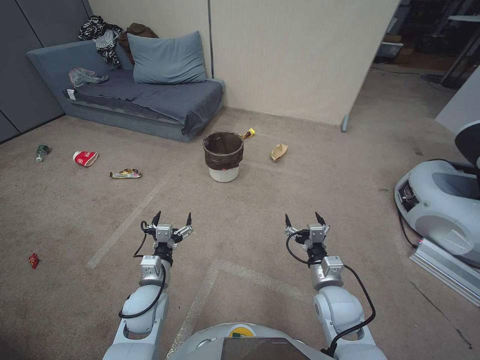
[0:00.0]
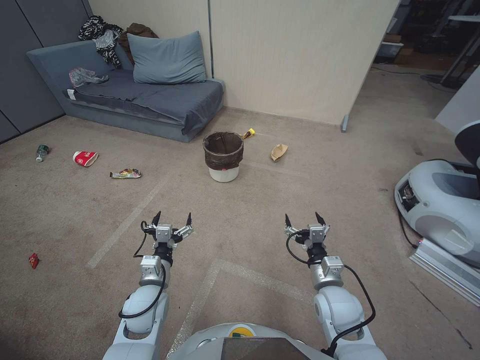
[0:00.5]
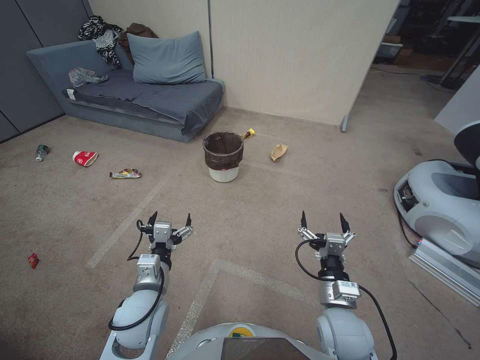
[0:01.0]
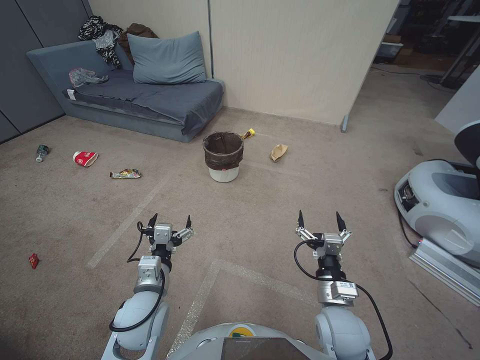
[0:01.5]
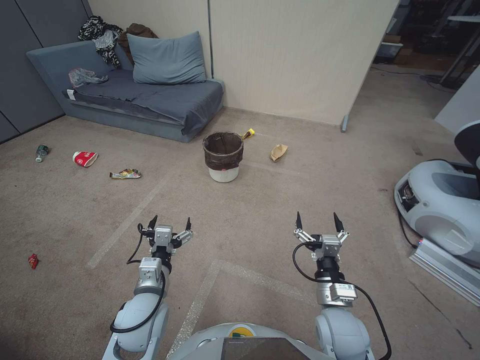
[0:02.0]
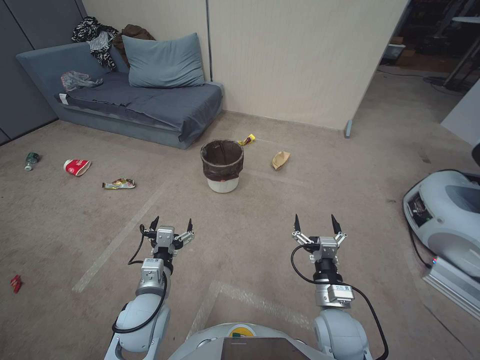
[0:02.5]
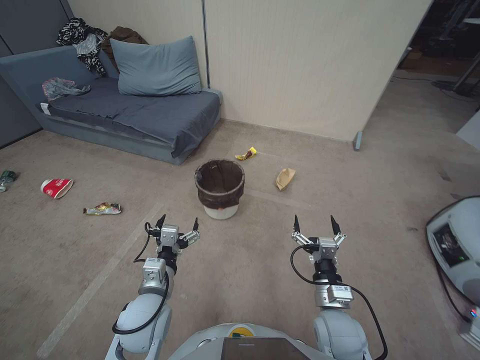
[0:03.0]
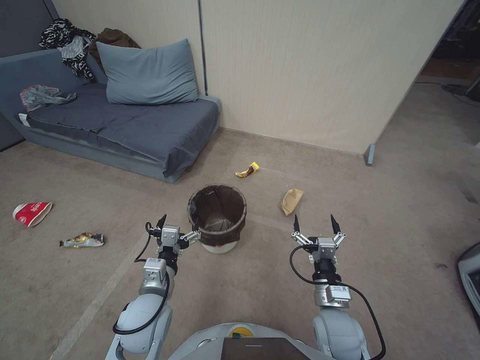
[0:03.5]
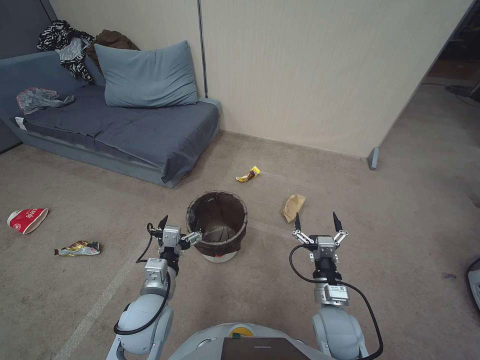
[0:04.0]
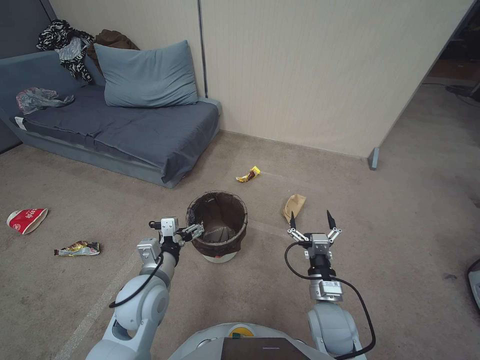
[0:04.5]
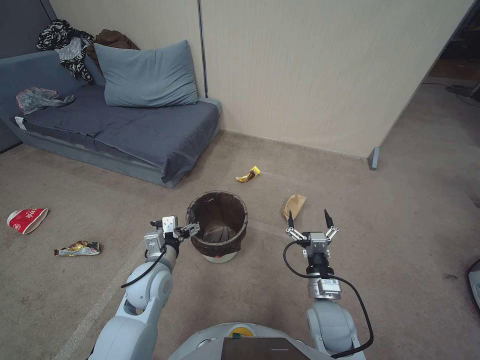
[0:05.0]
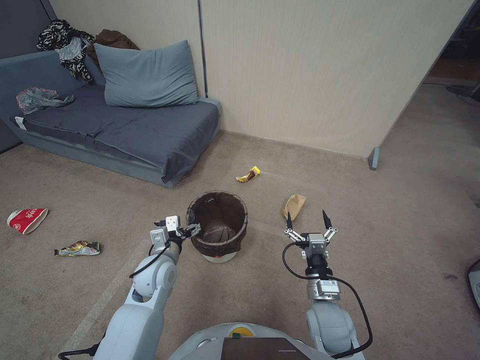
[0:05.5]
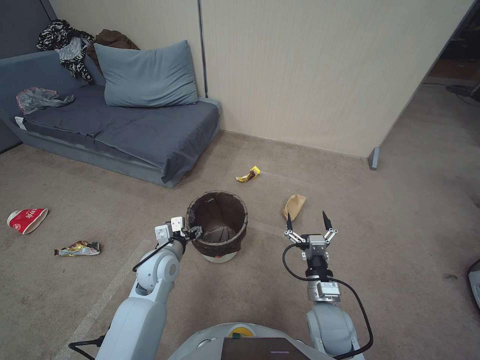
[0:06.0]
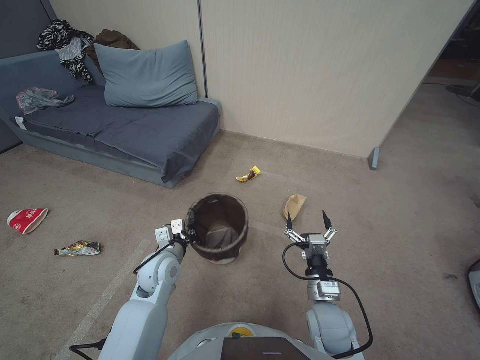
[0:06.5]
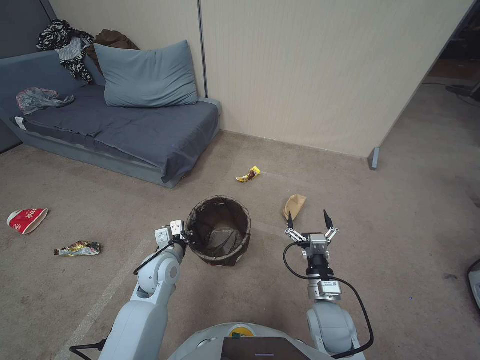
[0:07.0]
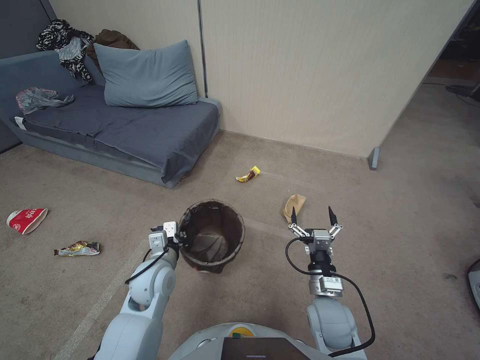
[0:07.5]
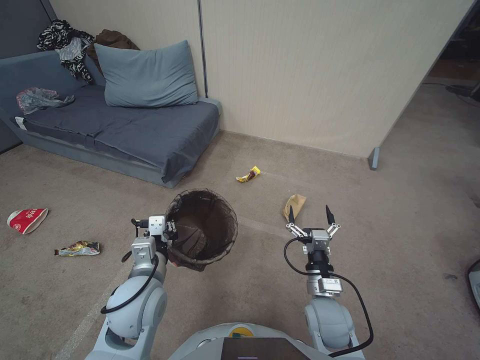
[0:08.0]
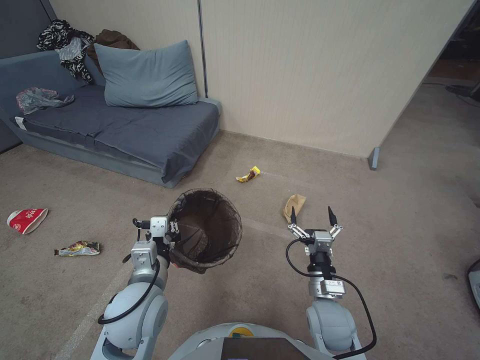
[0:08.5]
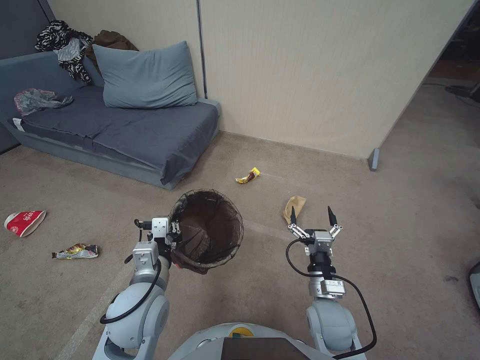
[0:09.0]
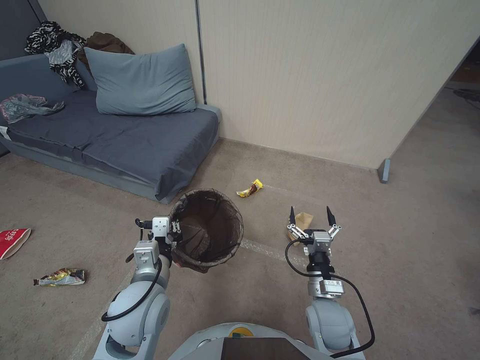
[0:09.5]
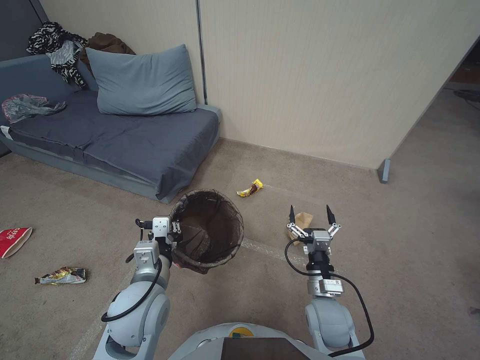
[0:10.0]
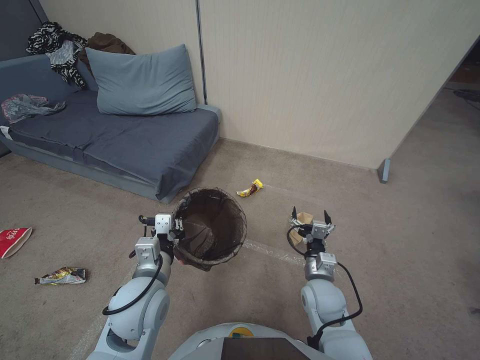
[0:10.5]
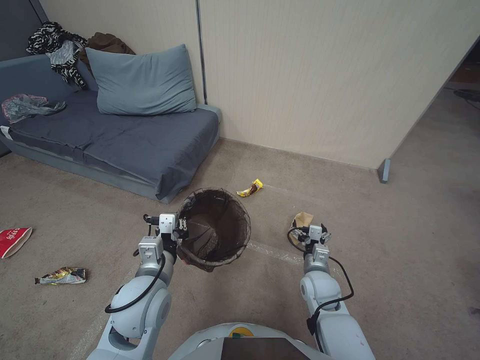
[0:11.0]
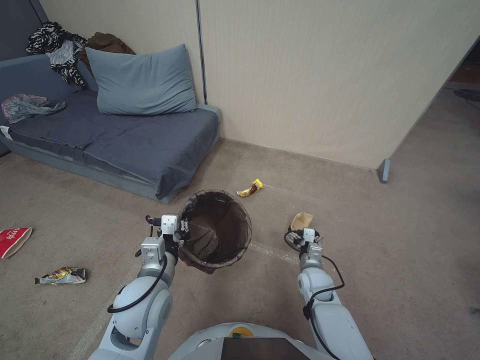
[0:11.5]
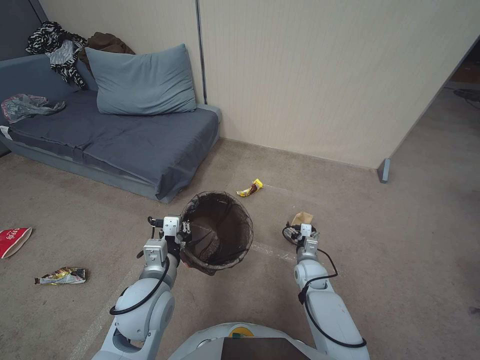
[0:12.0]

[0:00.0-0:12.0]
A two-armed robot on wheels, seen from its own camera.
Task of the whole recording: Pick up the trash bin, then pick up the garbage from the floor and place it into the trash bin.
0:04.0 to 0:06.0: The left gripper travels forward by approximately 10 cm.
0:06.0 to 0:08.0: The left gripper closes.
0:08.0 to 0:10.0: The left gripper heads backward and upward, covering approximately 10 cm.
0:10.0 to 0:12.0: The right gripper shifts approximately 15 cm forward and downward.

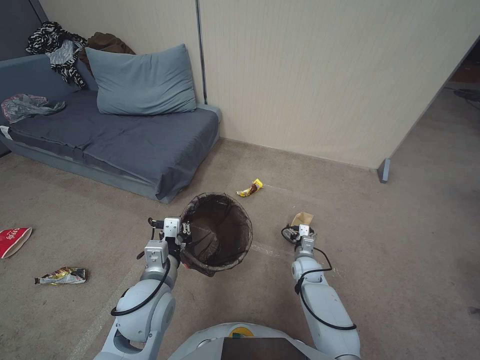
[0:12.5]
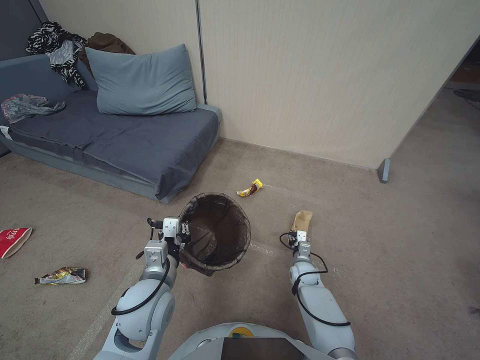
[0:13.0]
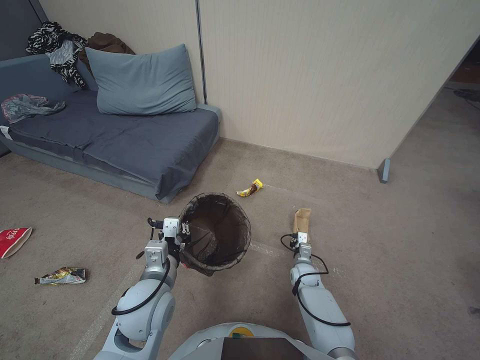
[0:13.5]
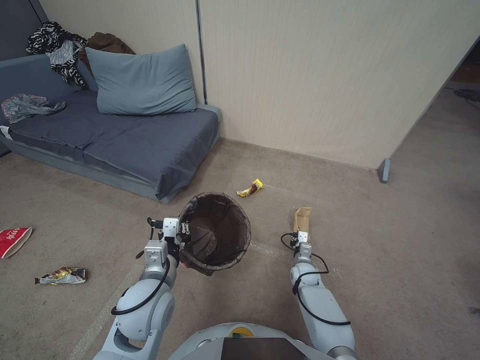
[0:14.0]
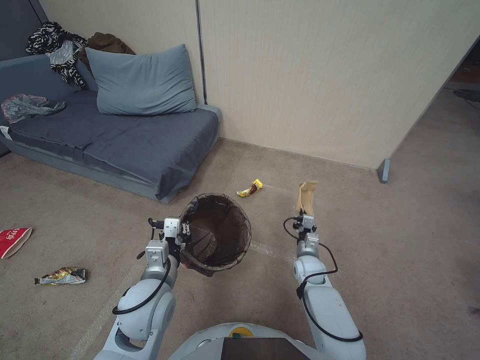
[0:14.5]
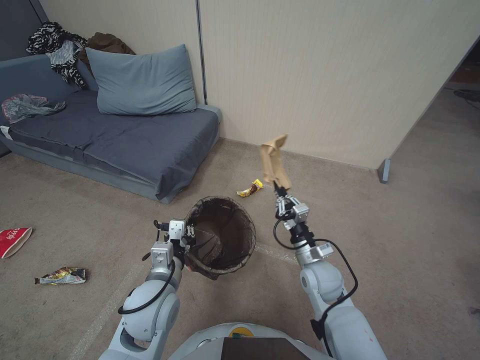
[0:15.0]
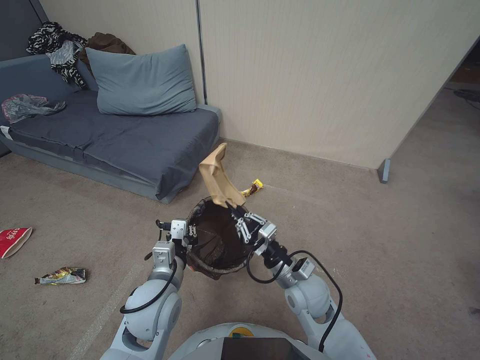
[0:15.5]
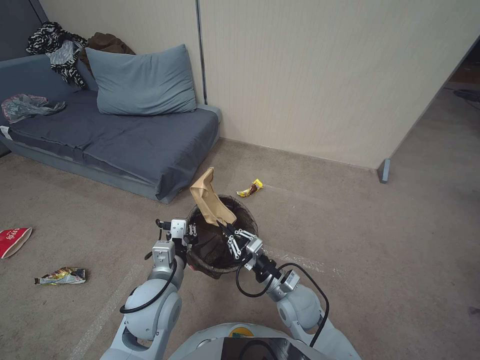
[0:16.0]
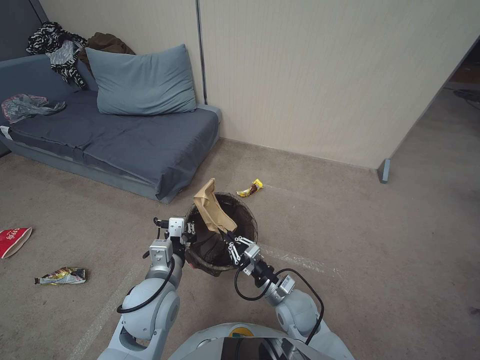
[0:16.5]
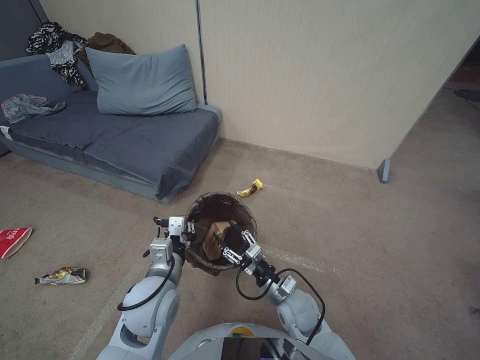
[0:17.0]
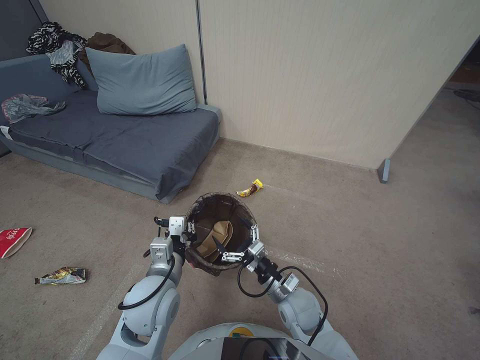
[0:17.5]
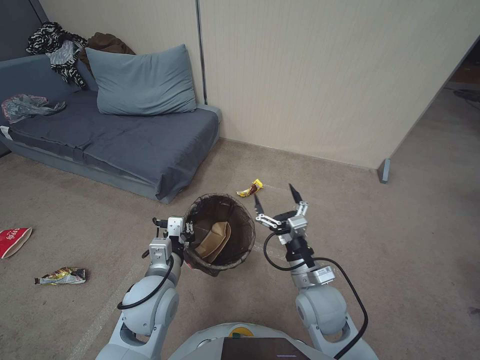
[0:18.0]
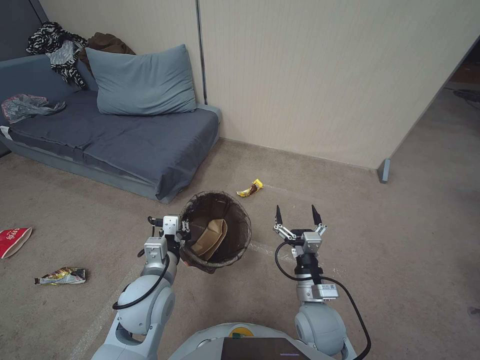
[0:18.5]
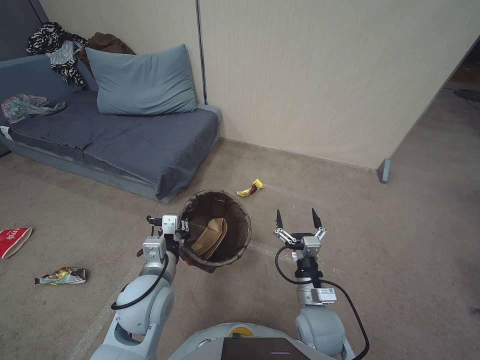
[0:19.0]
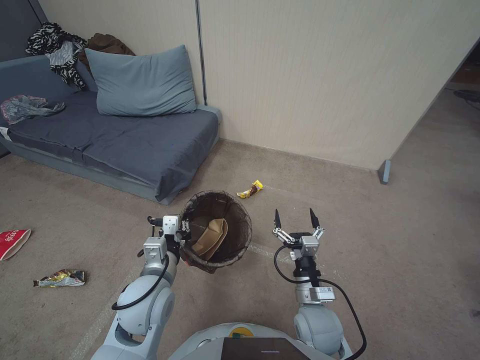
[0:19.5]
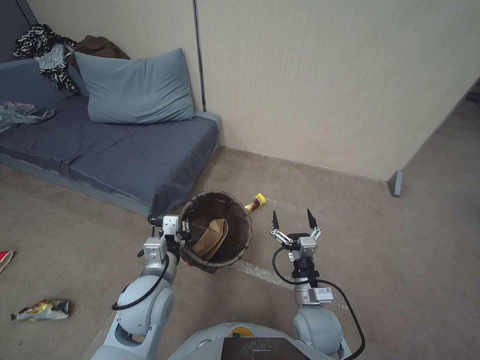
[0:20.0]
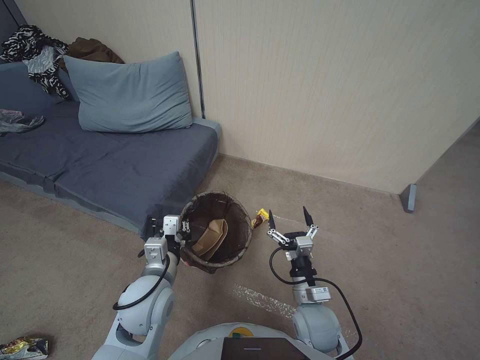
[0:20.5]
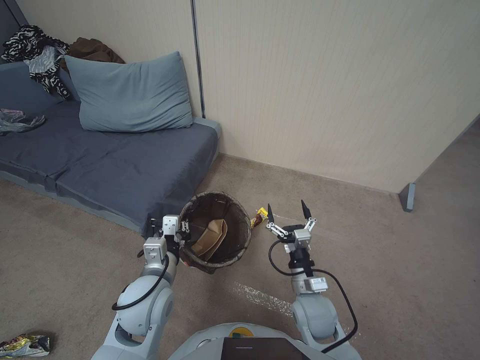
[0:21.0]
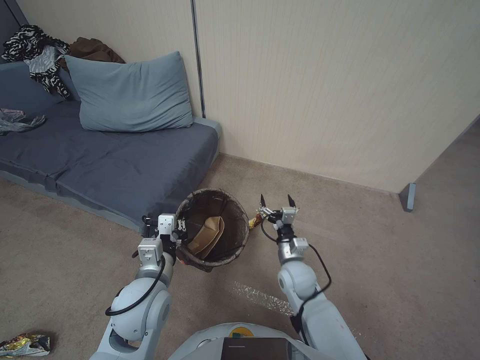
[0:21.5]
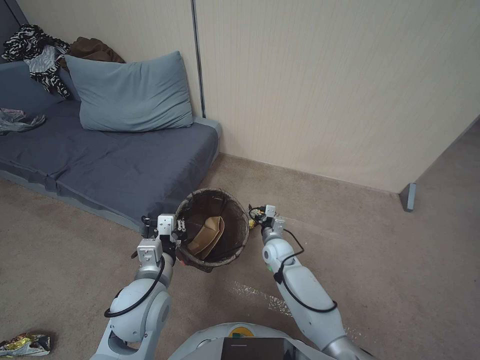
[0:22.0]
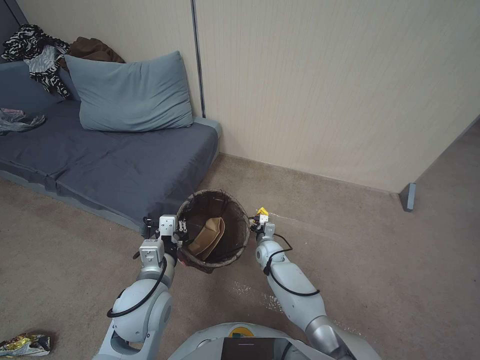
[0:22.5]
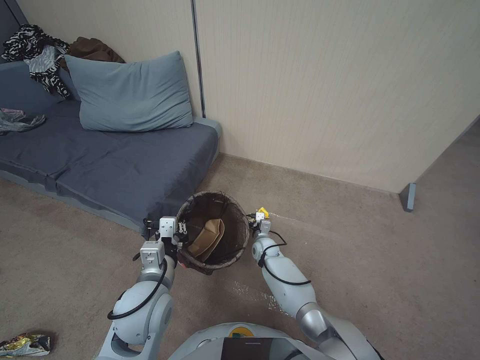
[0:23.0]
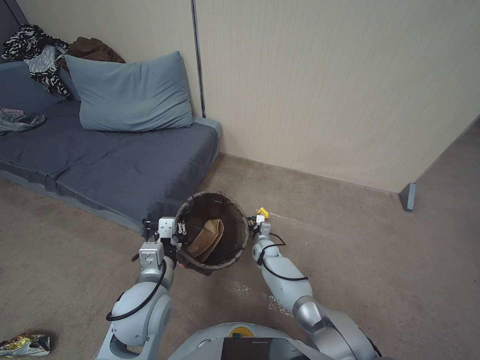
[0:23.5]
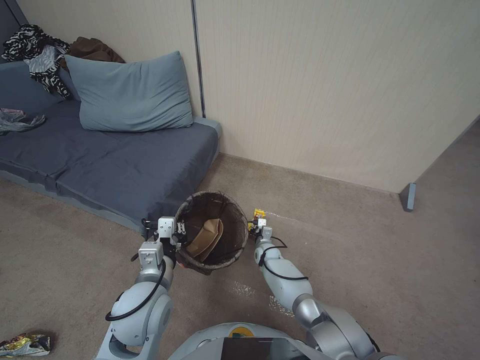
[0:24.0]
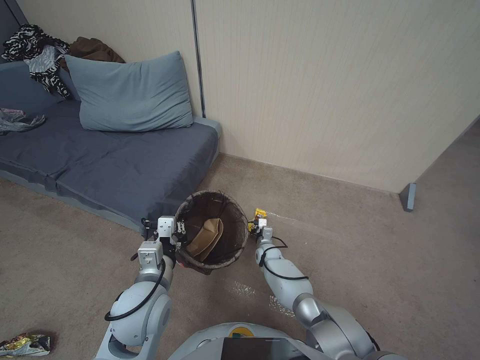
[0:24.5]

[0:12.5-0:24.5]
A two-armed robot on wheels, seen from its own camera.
Task of the whole recording: Pick up the trash bin, then pick up the garbage from the floor and place it into the trash bin.
0:12.5 to 0:14.5: The right gripper closes.
0:14.5 to 0:16.5: The right gripper is displaced backward, upward and to the left by roughly 20 cm.
0:16.5 to 0:18.5: The right gripper travels upward by roughly 5 cm, and opens up.
0:18.5 to 0:20.5: There are only small adjustments of the grippers.
0:20.5 to 0:22.5: The right gripper goes about 25 cm forward and downward.
0:22.5 to 0:24.5: The right gripper goes approximately 5 cm downward, and closes its fingers.

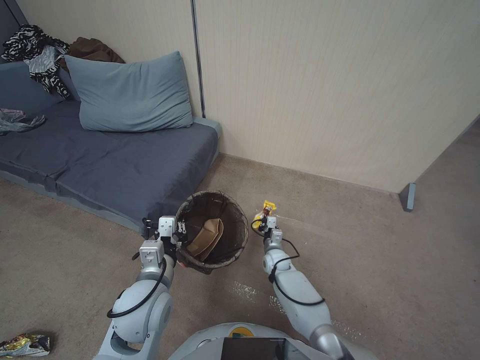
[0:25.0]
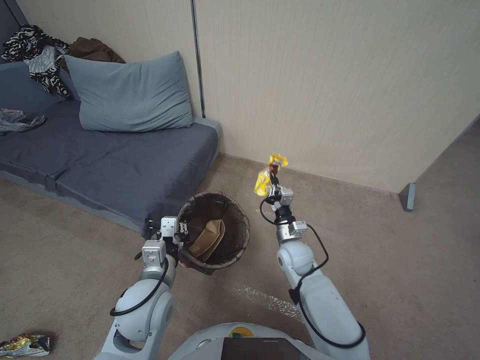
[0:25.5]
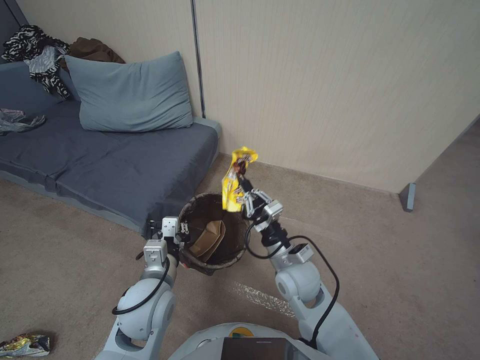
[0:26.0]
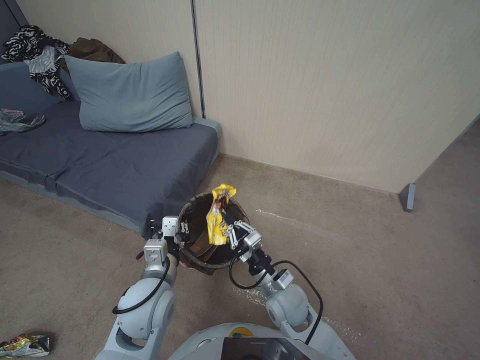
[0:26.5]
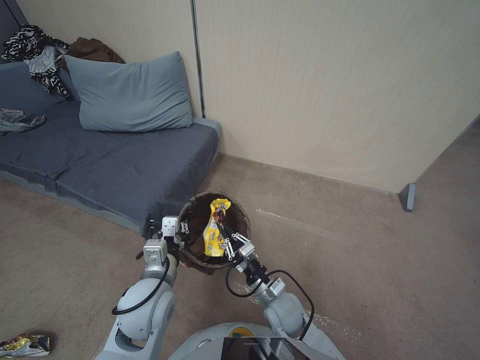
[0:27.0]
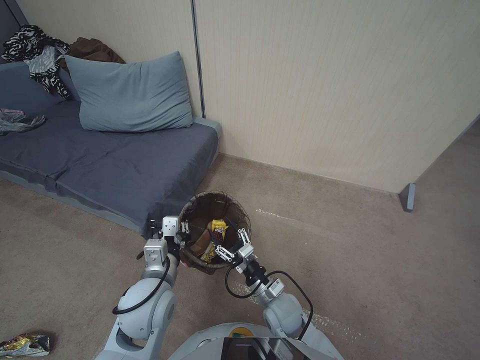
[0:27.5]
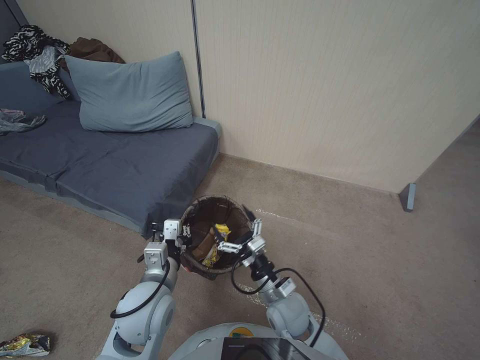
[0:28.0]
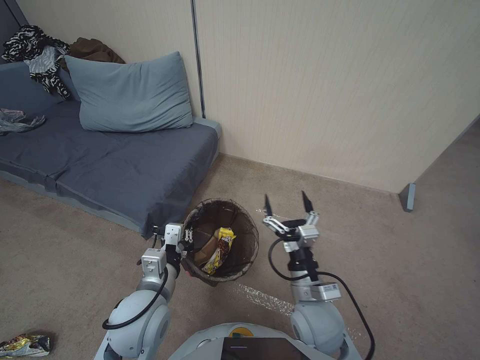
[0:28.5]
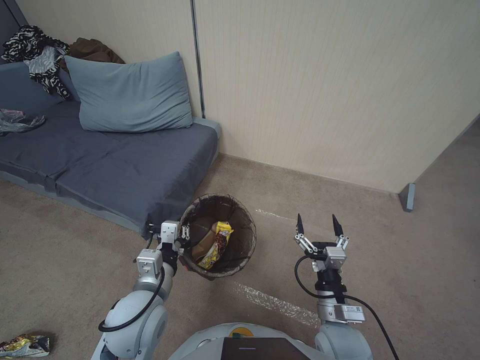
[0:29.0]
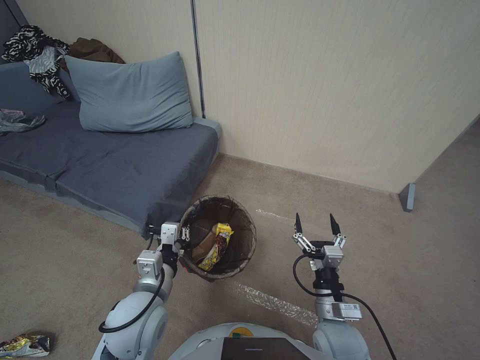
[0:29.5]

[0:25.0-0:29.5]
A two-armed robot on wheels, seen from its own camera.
Task of the whole recording: Pick up the trash bin, then pick up the garbage from the floor and place it into the trash bin.
0:25.0 to 0:27.0: The right gripper travels backward and upward by some 20 cm.
0:27.0 to 0:29.5: The right gripper is displaced to the right, backward and upward by approximately 15 cm, and opens up.
